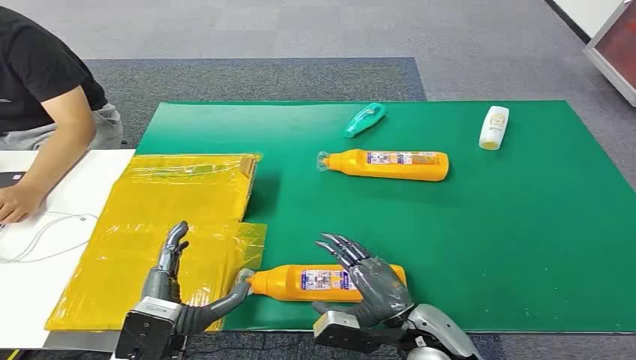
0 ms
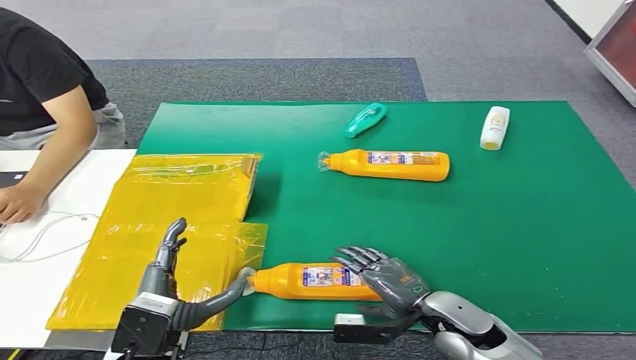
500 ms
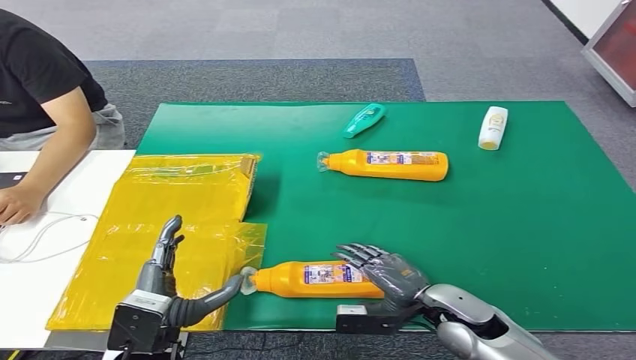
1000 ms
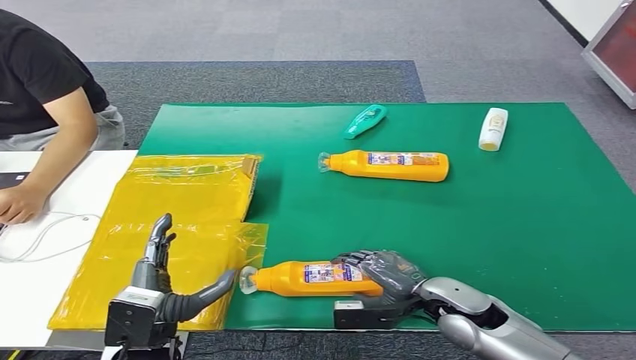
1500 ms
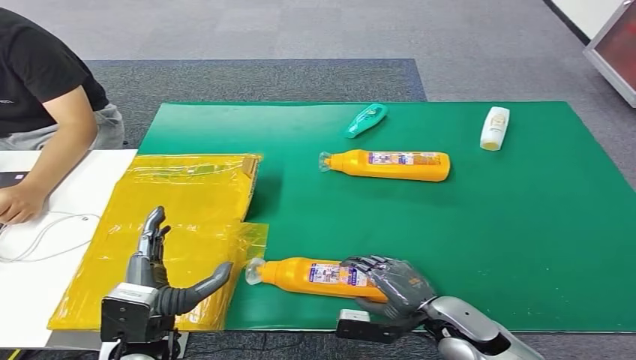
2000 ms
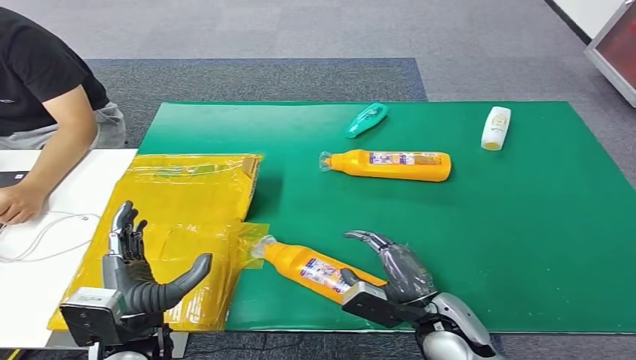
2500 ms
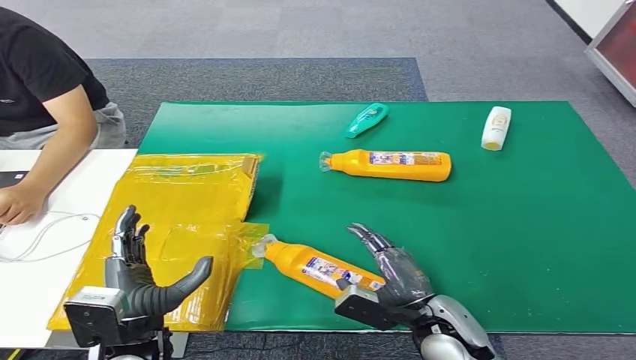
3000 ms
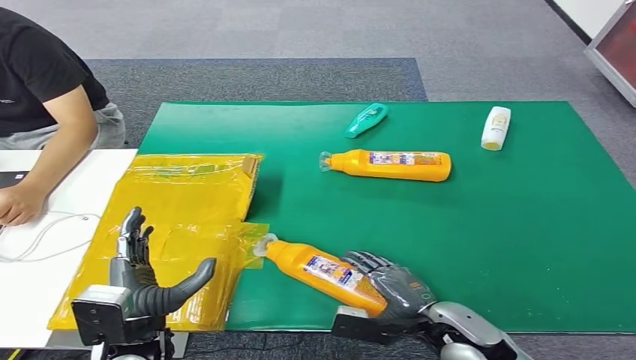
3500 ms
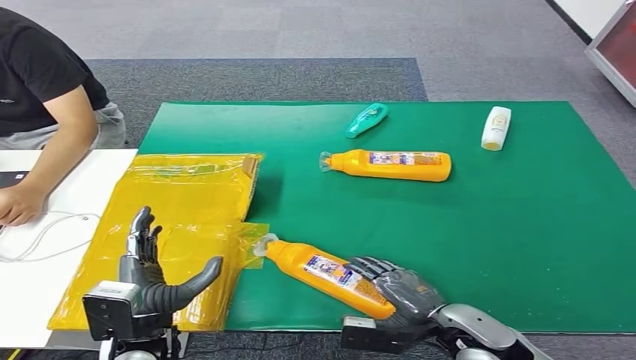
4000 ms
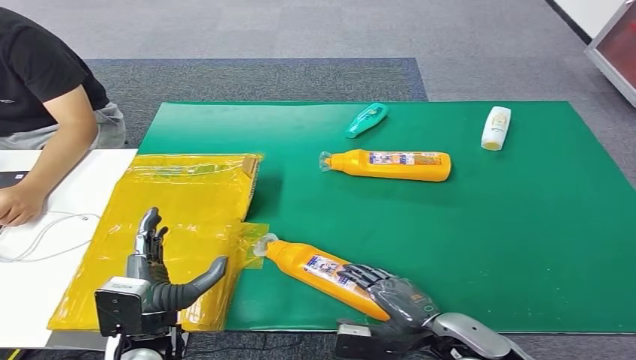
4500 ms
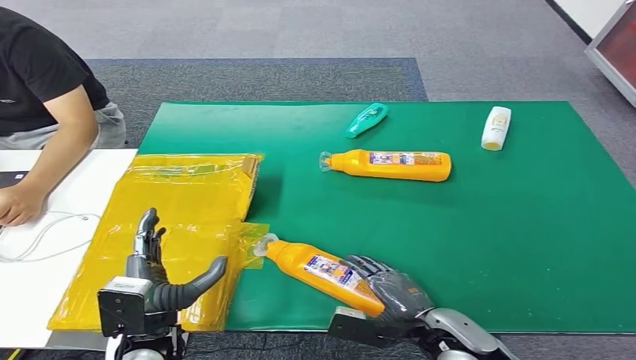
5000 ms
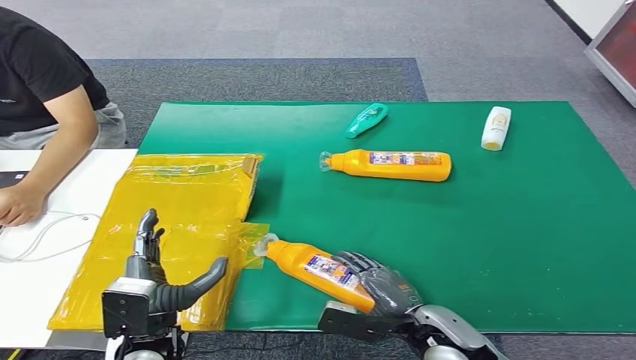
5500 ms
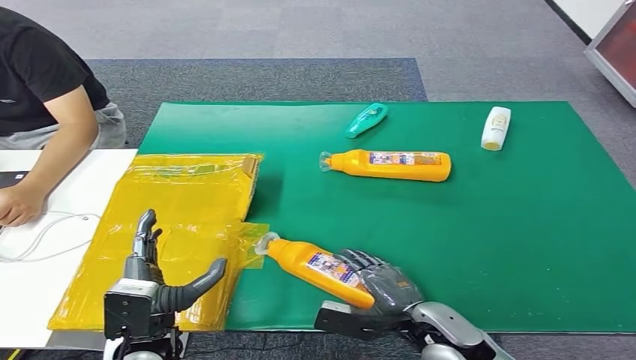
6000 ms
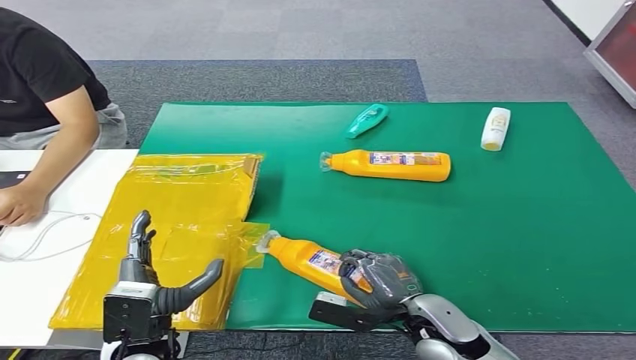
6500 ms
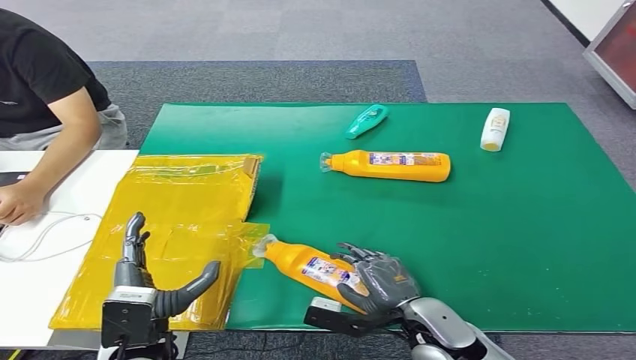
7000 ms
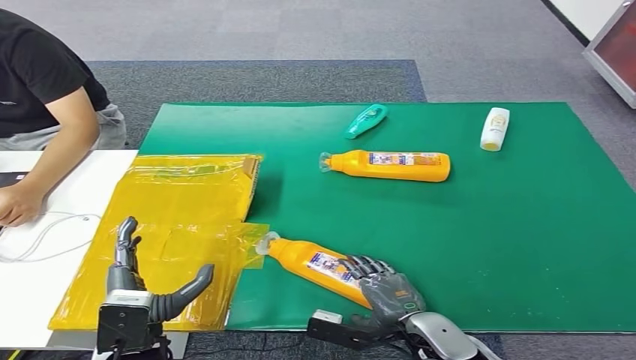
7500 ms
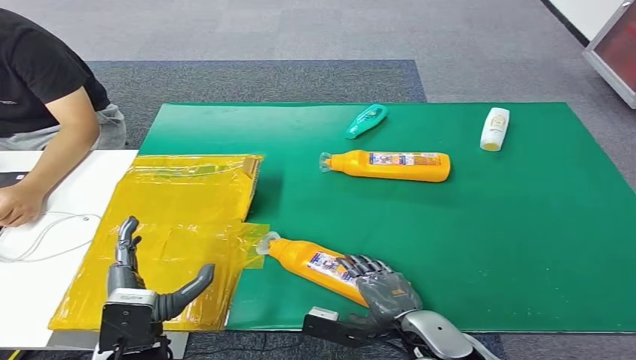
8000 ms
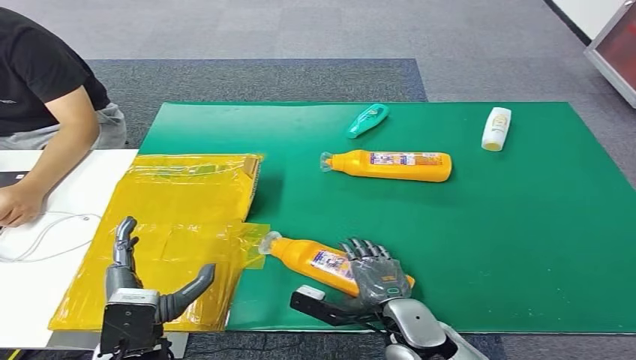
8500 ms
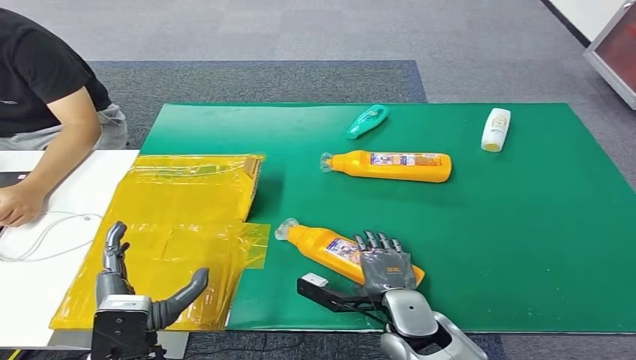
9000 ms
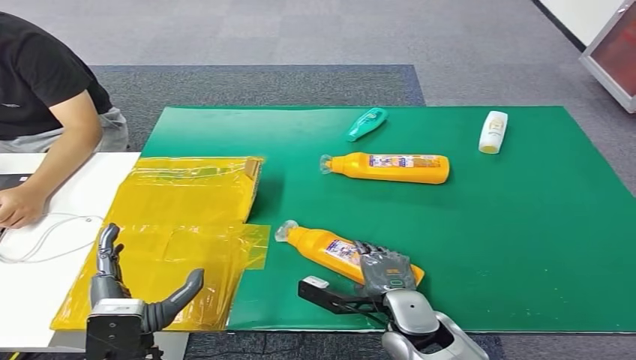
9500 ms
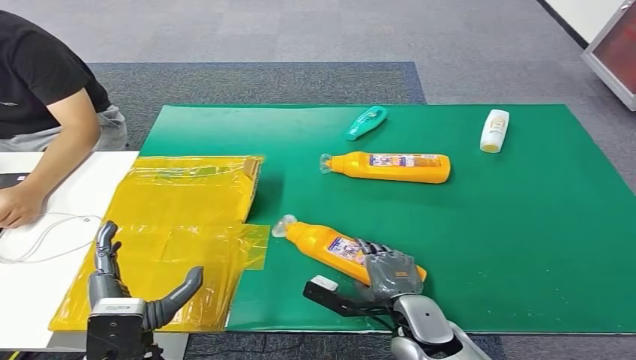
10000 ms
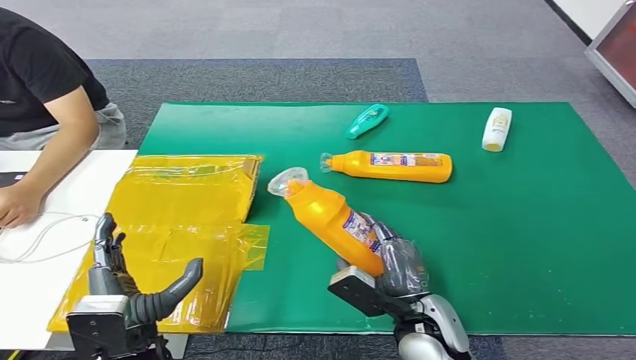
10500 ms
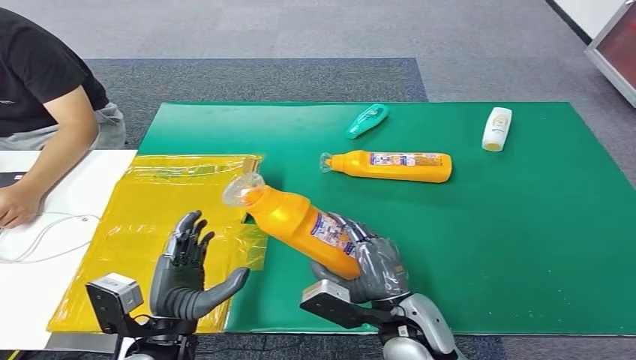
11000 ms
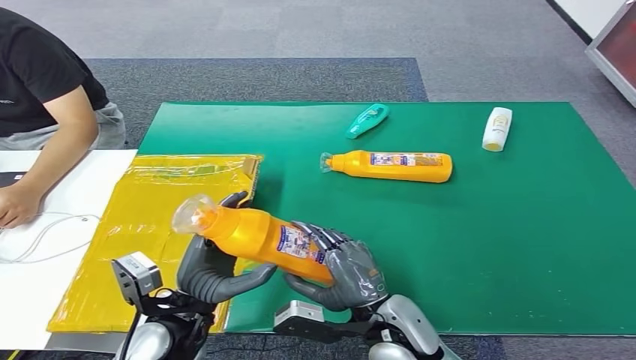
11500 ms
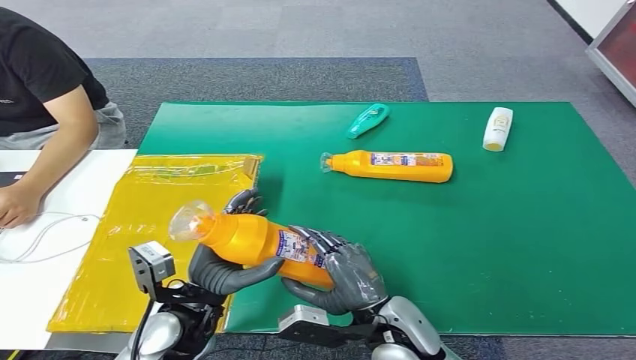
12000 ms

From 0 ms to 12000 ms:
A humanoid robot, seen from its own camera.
Step, from 0 ms to 10500 ms: Pick up the bottle from the table.
From 4000 ms to 8000 ms: The hands move only a little.
From 10000 ms to 12000 ms: The right hand goes some 5 cm upward. The left hand heads forward, covering roughly 10 cm.

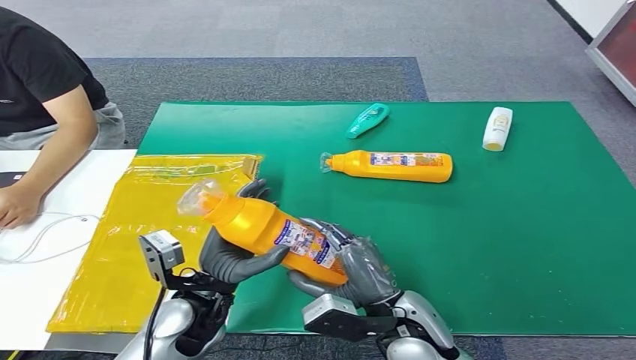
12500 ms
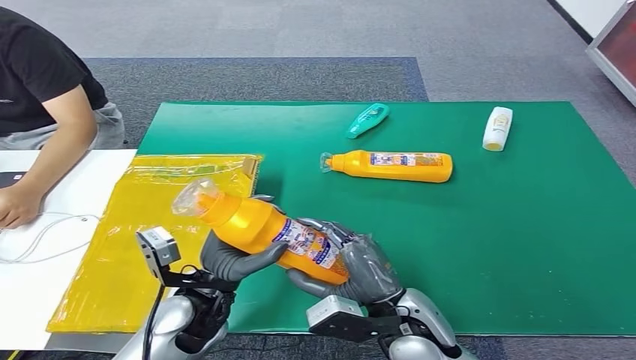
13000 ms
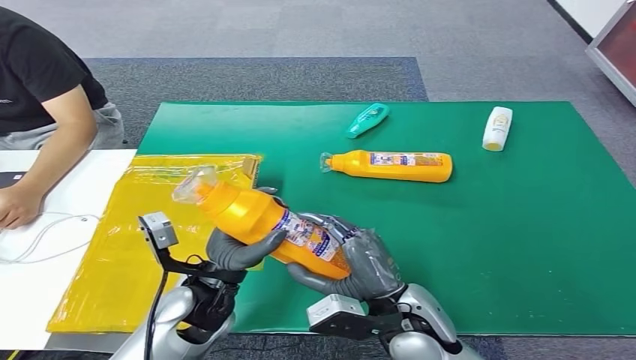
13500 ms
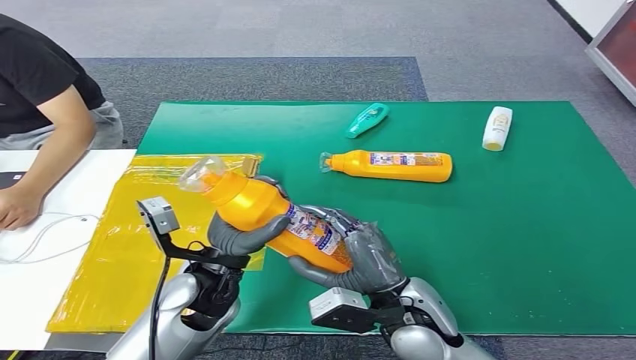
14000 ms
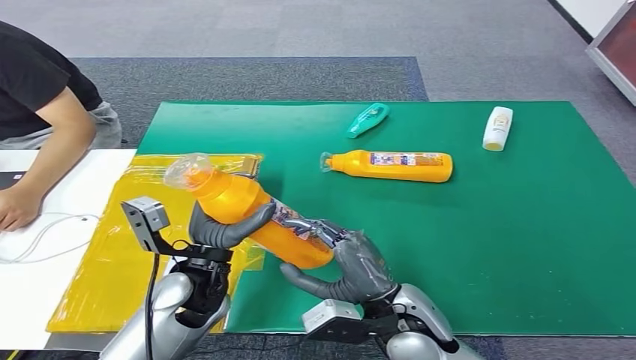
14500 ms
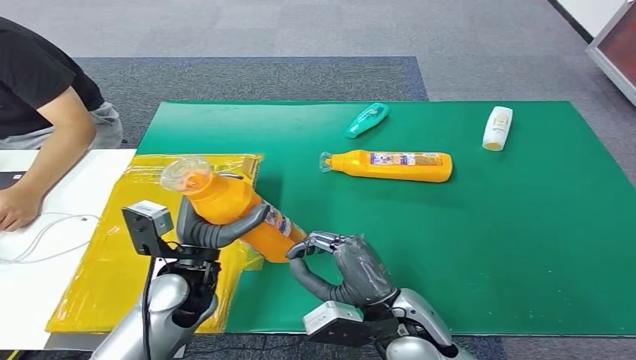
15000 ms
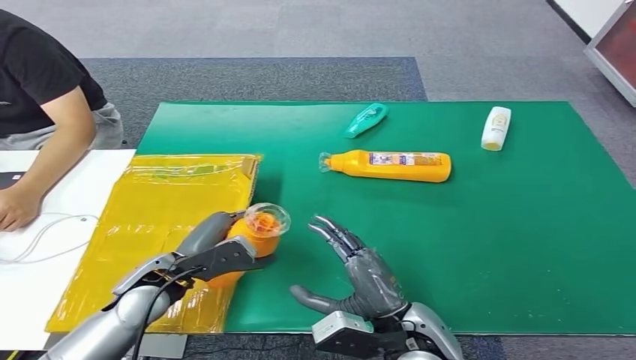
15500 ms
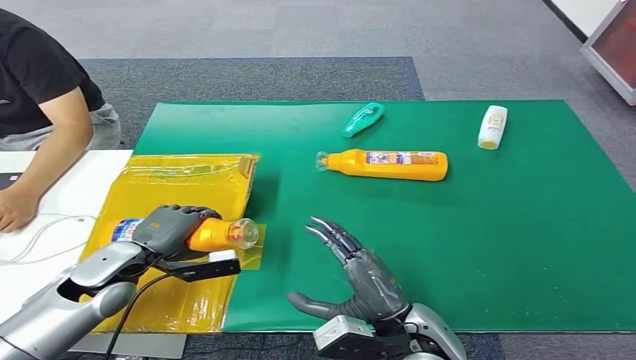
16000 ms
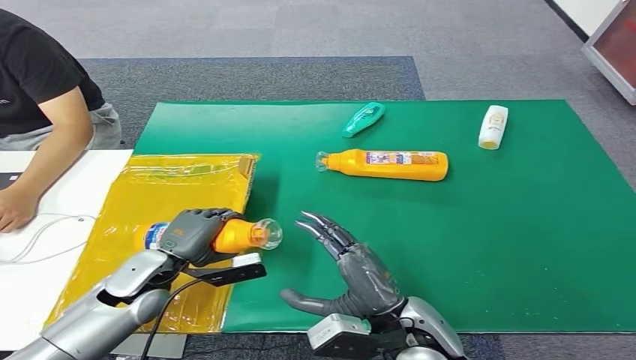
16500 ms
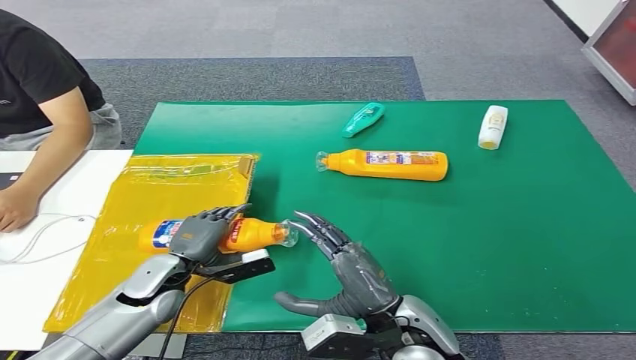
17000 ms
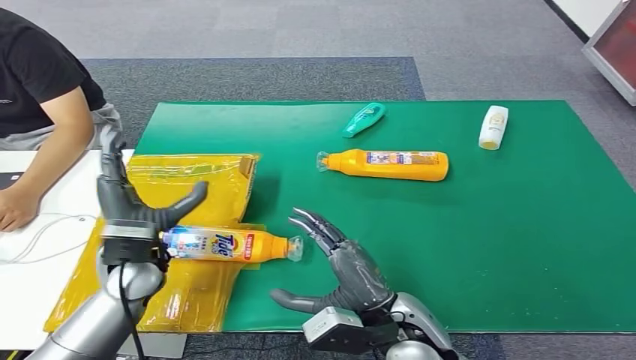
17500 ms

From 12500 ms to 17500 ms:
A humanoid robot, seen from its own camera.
Step, from 12500 ms to 17500 ms: Turn the bottle to the front side.
From 12500 ms to 15000 ms: There are only small adjustments of the hands.
From 15000 ms to 17500 ms: The left hand moves to the left, approximately 5 cm.
